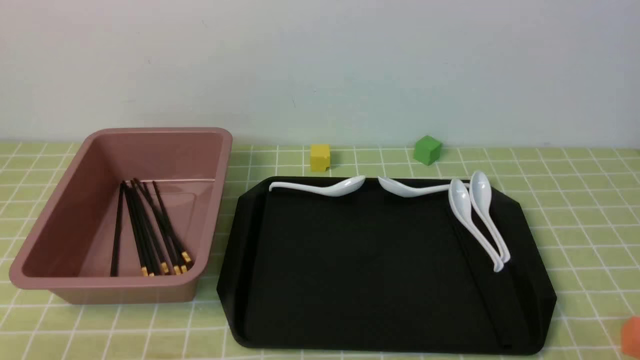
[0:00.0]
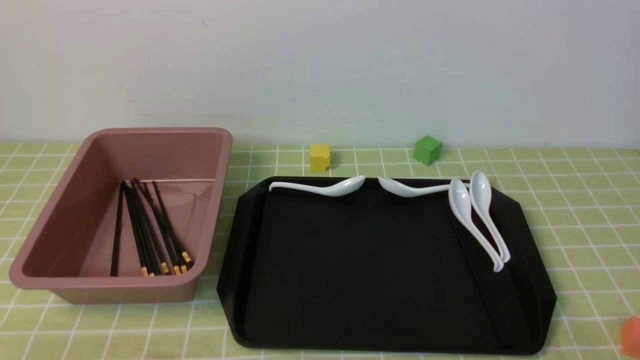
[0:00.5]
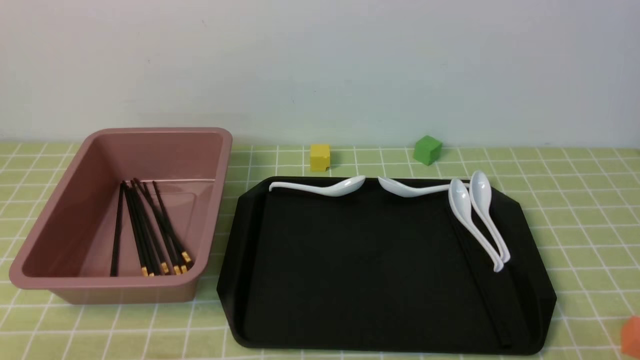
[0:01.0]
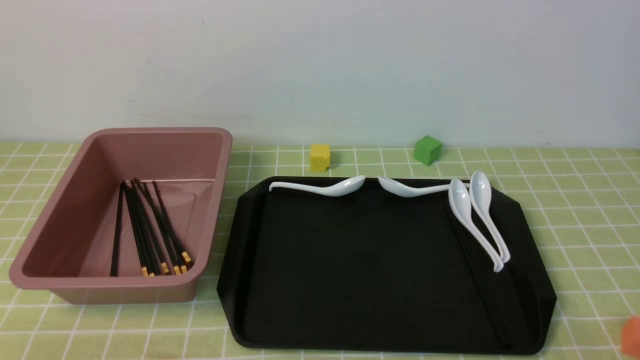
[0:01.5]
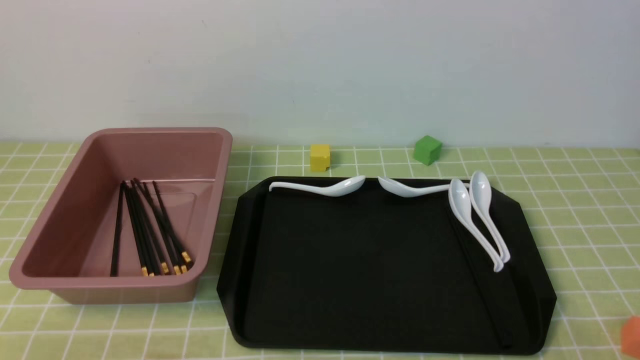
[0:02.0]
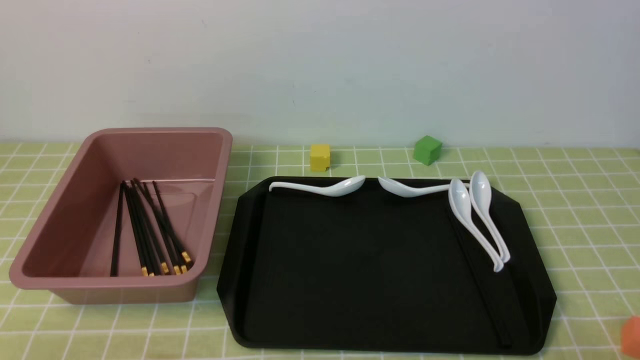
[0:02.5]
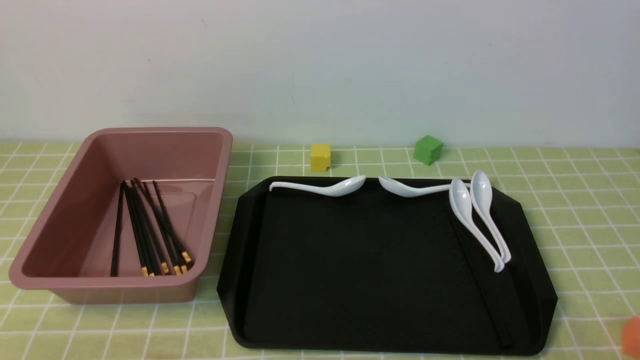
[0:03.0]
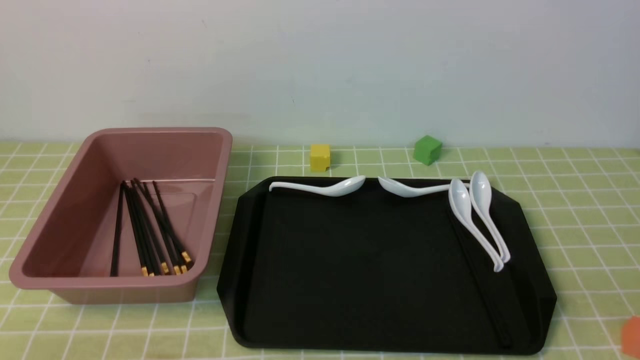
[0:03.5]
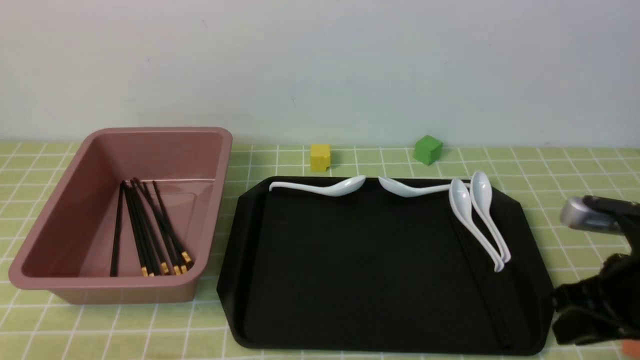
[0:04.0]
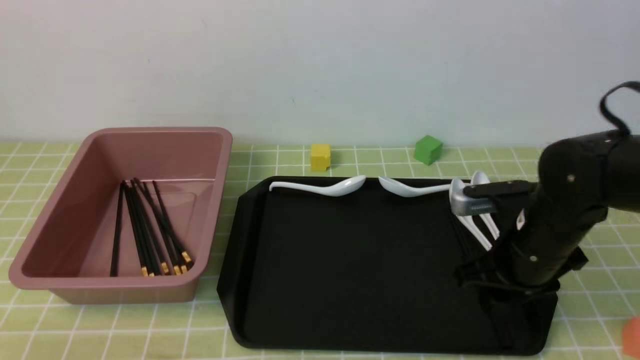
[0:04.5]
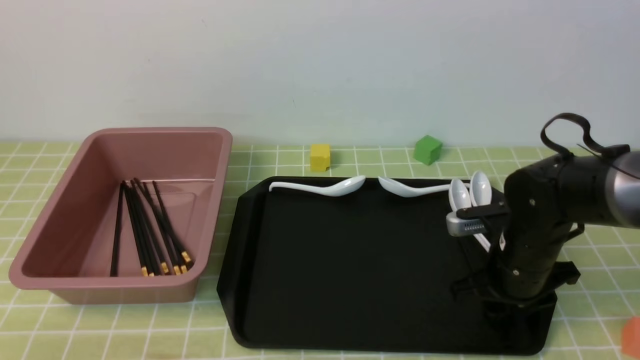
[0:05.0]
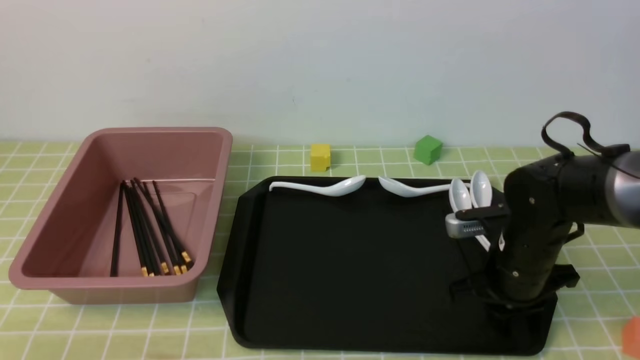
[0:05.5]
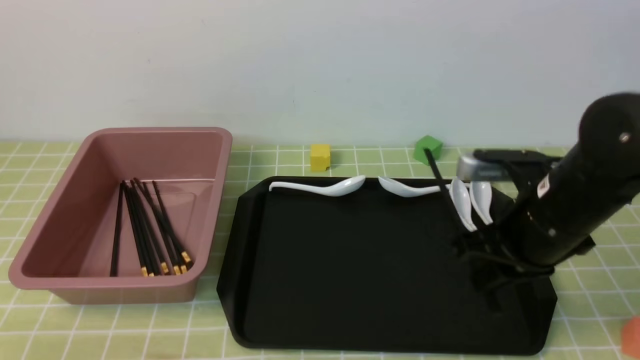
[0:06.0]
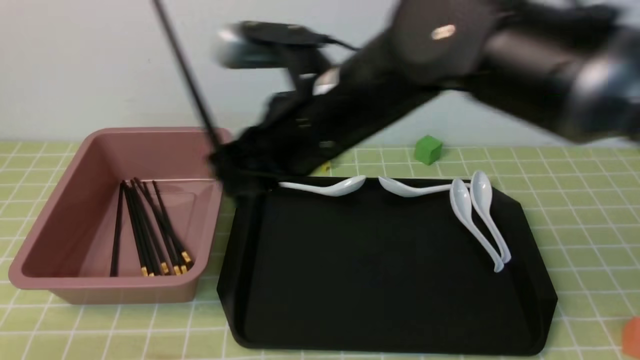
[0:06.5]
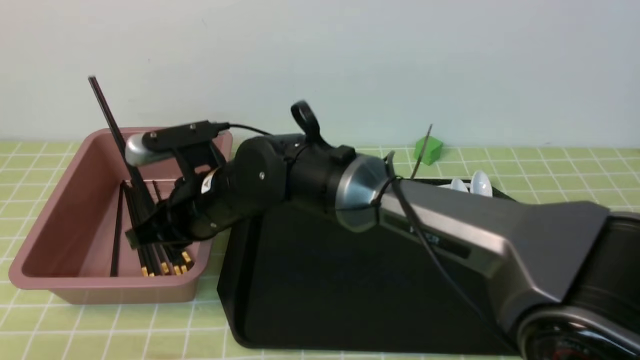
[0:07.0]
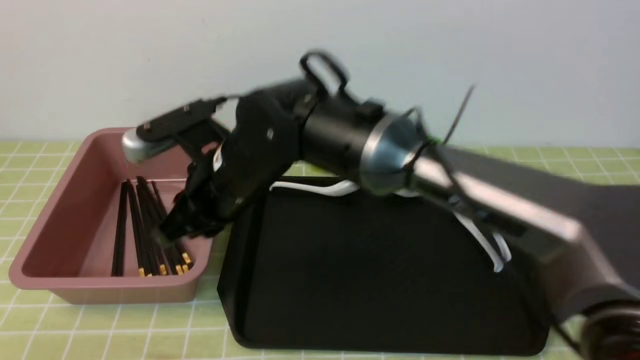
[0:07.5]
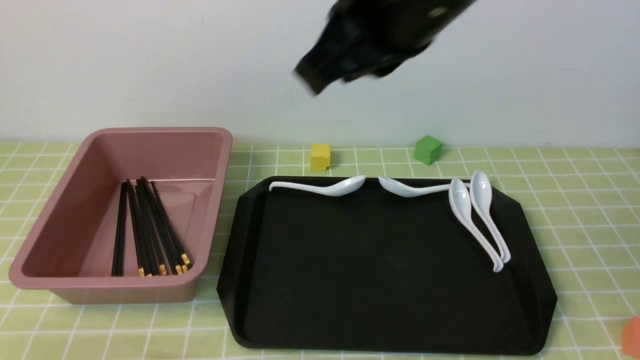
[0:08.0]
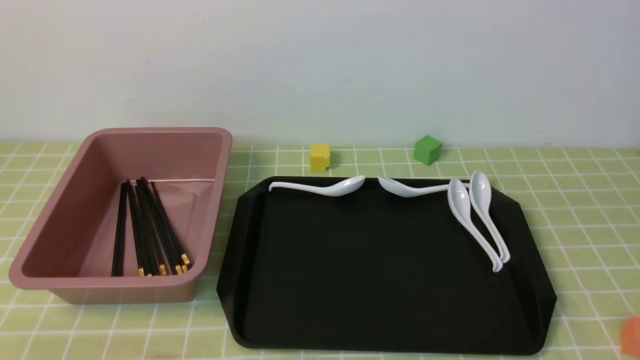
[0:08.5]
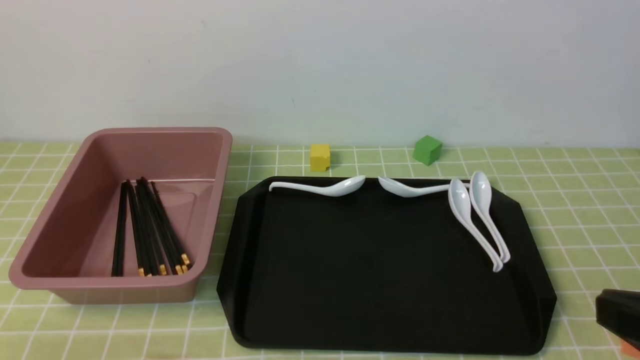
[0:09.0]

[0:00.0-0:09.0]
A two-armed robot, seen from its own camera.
Step, 0:00.0 to 0:05.5: use the right arm to grab a pair of chopsticks.
Step, 0:06.0 to 0:07.0: use the right arm to put the chopsticks into the lunch box.
0:00.0 to 0:02.0: Neither gripper changes place.
0:02.0 to 0:04.5: The right gripper travels forward by about 25 cm, and closes, then opens again.
0:04.5 to 0:07.0: The right gripper heads to the left, covering roughly 30 cm, and closes.
0:07.0 to 0:09.0: The right gripper shifts some 40 cm to the right and backward, and closes up.

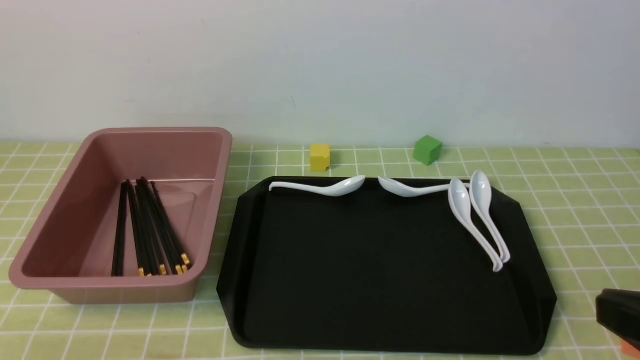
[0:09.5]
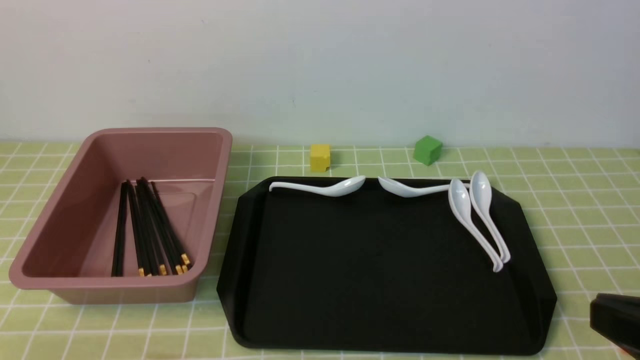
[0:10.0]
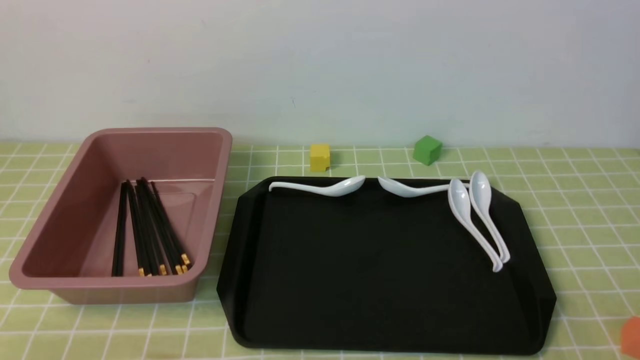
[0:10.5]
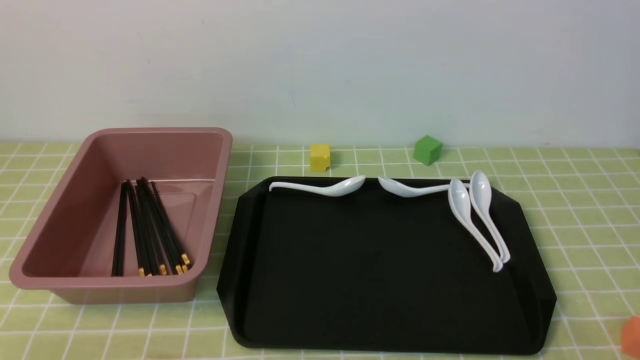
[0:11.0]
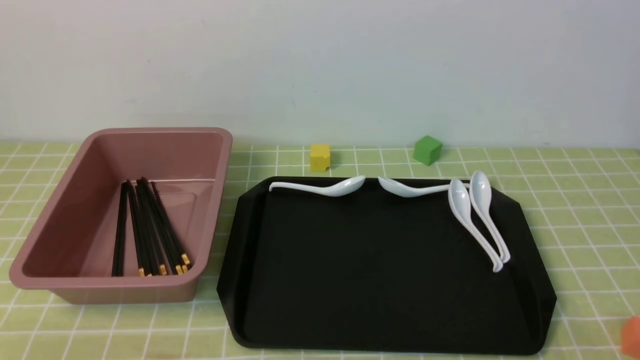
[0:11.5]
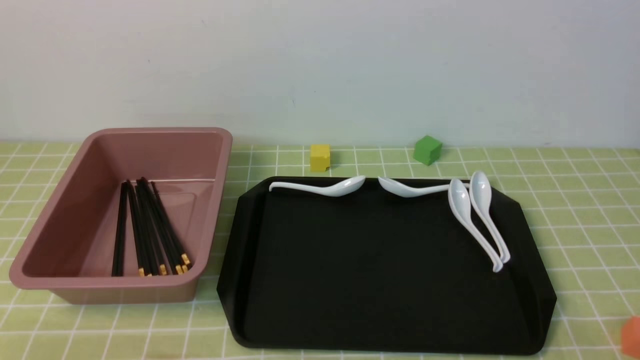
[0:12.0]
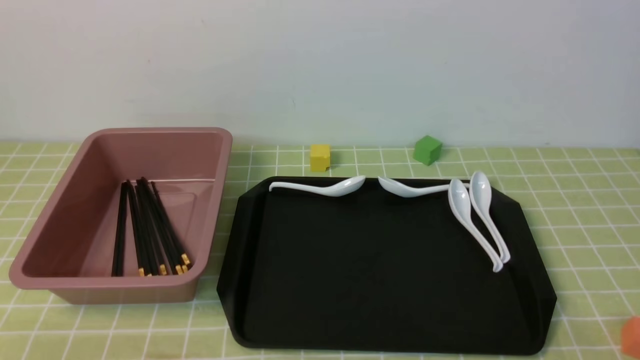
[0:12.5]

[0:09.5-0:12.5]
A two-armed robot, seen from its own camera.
0:09.5 to 0:11.0: The right gripper moves downward and to the right, approximately 15 cm.
0:11.0 to 0:12.5: Both grippers stay about where they are.

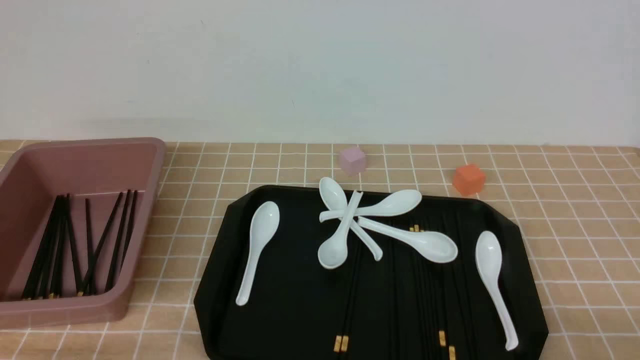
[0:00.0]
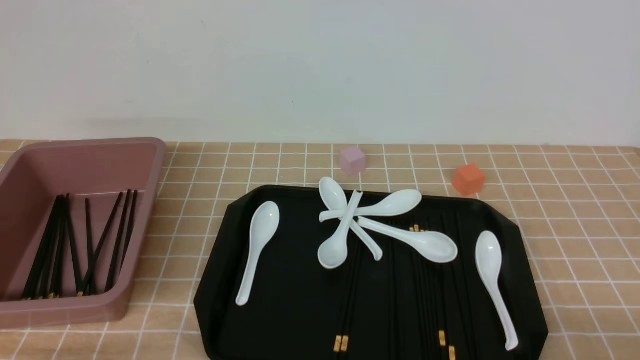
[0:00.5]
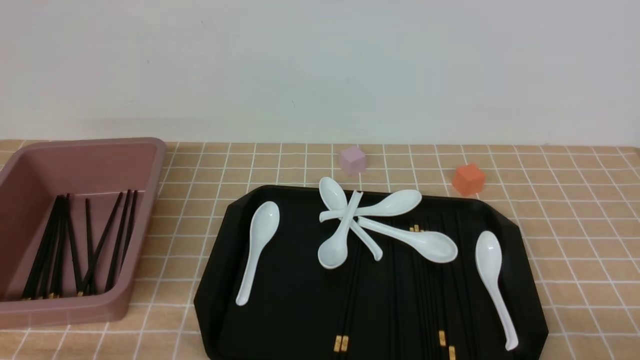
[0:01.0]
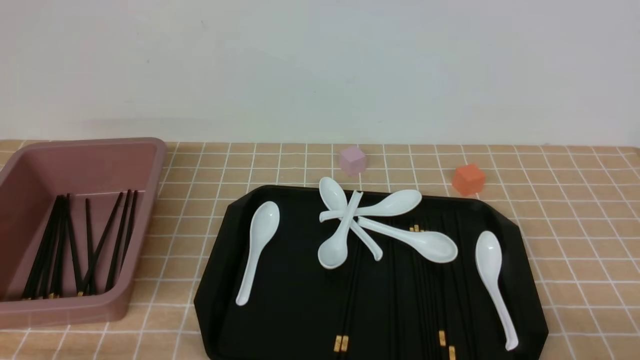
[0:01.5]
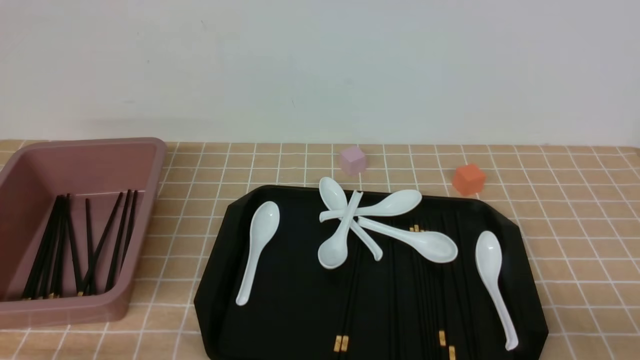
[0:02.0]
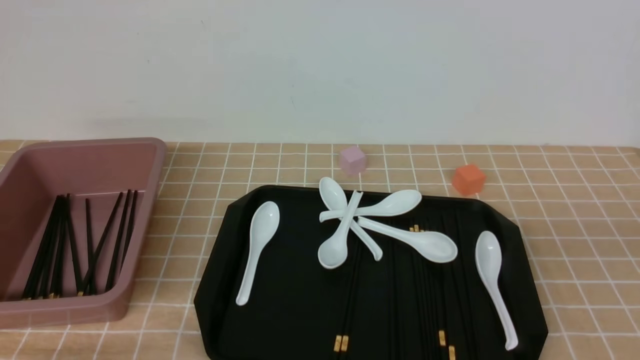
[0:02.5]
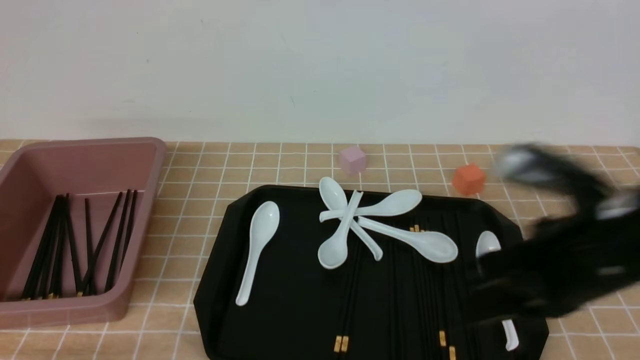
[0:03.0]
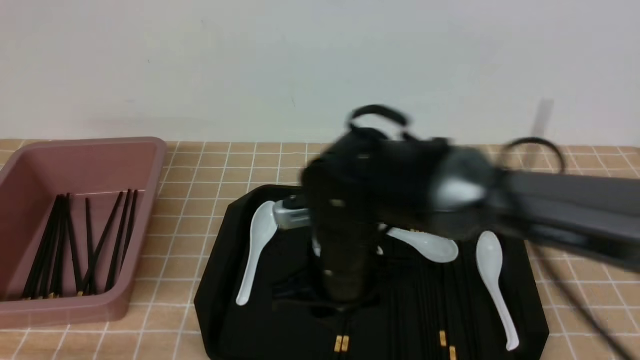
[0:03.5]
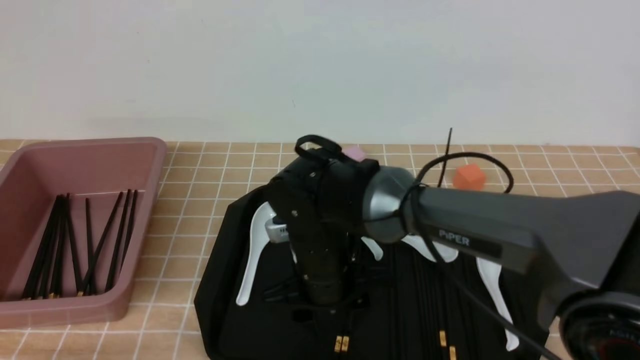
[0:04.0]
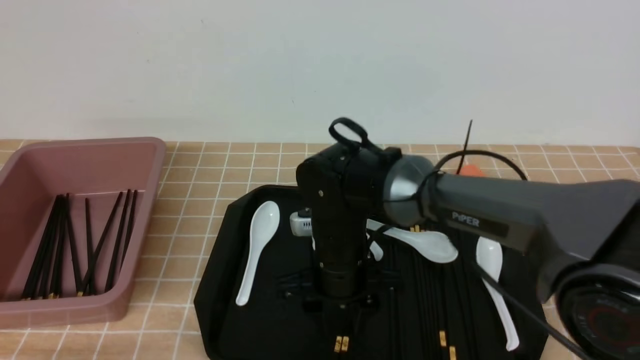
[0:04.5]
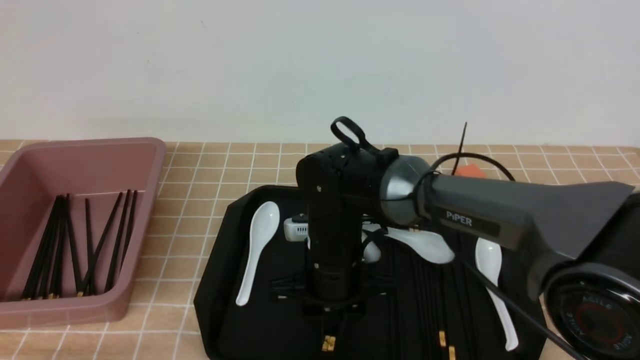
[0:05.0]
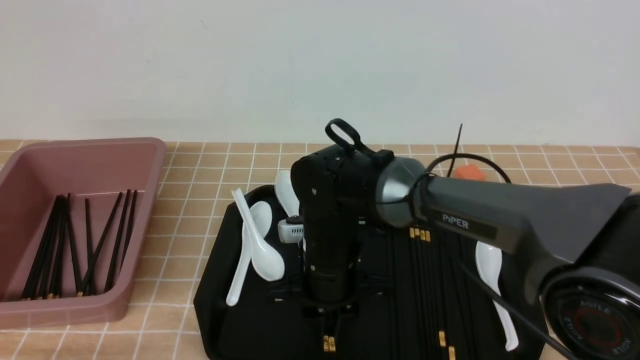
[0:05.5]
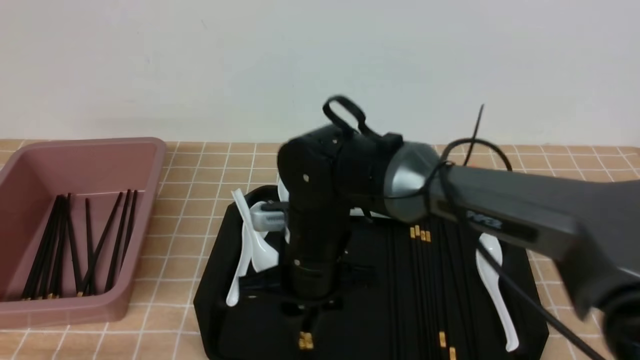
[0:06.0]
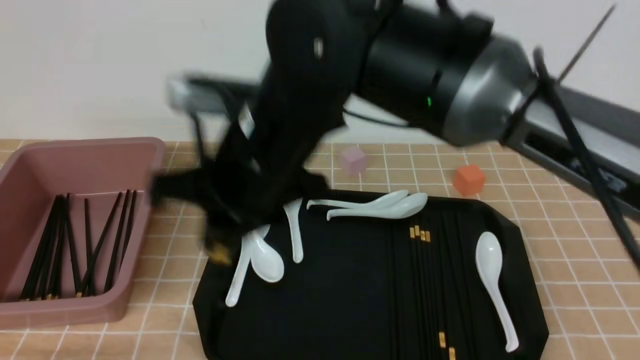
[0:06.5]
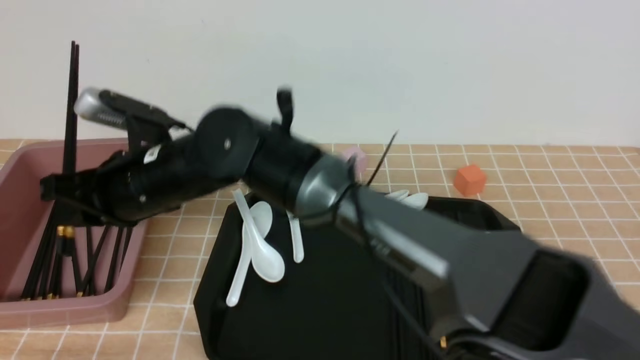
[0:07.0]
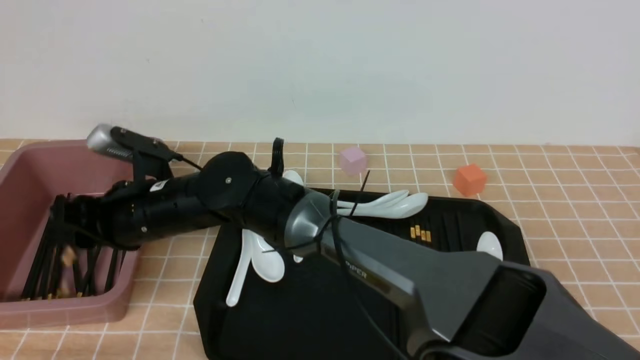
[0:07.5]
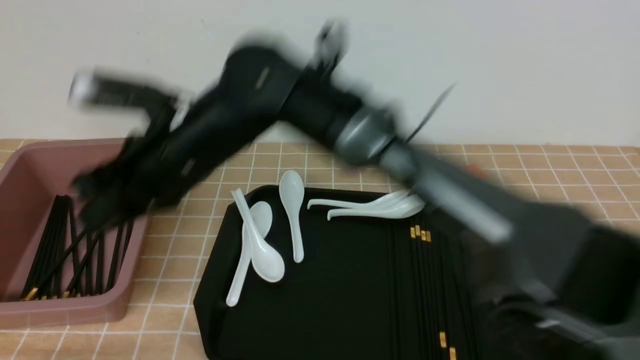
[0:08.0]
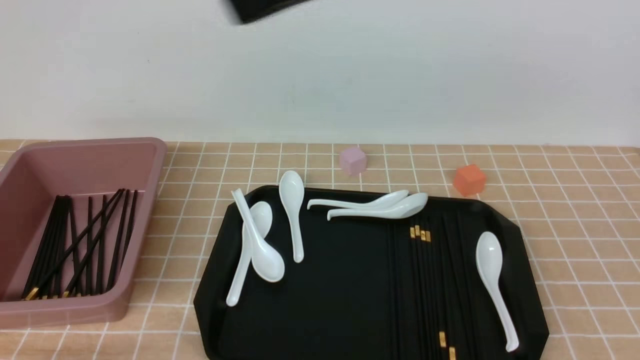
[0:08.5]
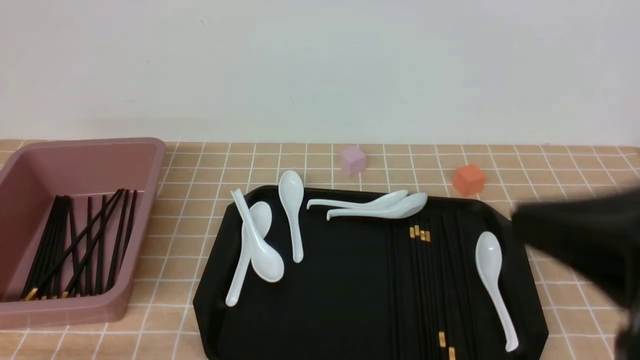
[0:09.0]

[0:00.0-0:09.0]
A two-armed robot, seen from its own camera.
Step, 0:00.0 to 0:06.0: use the right arm to grab a pair of chopsticks.
Step, 0:06.5 to 0:07.5: use the right arm to put the chopsticks into the lunch box.
0:02.0 to 0:04.5: The right gripper moves to the left and forward, approximately 40 cm, and closes, then opens again.
0:04.5 to 0:07.0: The left gripper opens its fingers; the right gripper heads to the left and upward, covering about 20 cm, and closes up.
0:07.0 to 0:09.0: The right gripper goes roughly 40 cm to the right and backward, and closes up.
